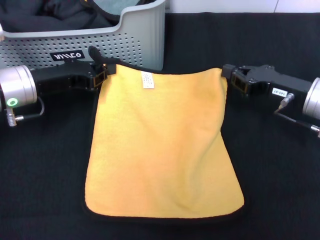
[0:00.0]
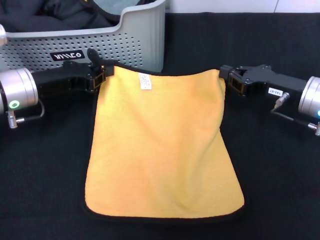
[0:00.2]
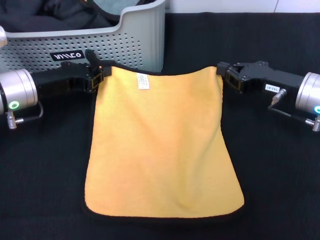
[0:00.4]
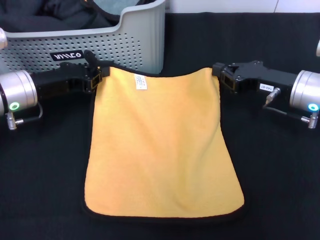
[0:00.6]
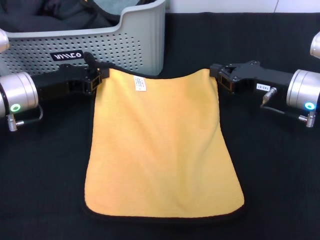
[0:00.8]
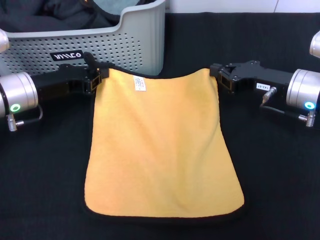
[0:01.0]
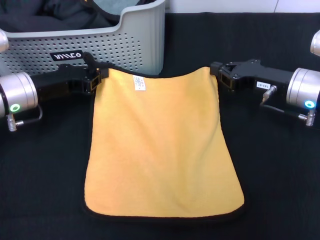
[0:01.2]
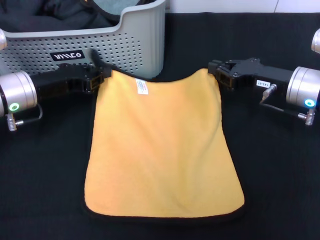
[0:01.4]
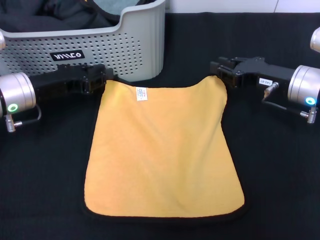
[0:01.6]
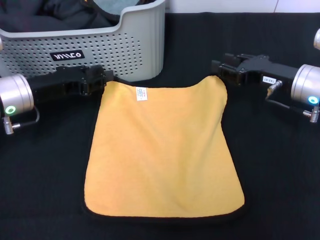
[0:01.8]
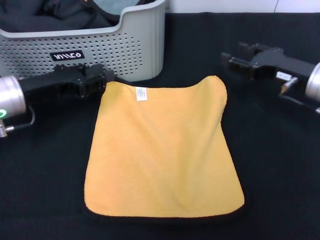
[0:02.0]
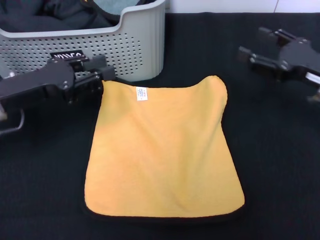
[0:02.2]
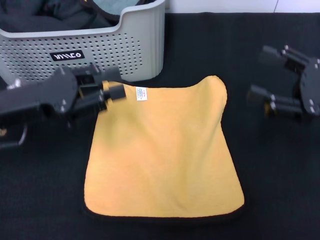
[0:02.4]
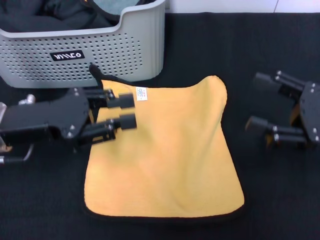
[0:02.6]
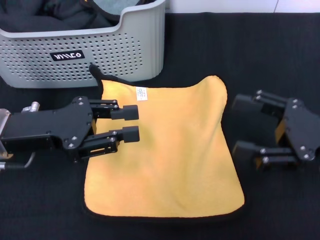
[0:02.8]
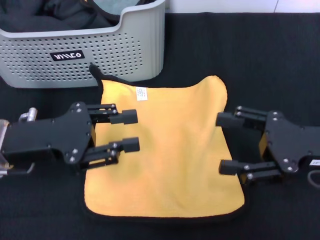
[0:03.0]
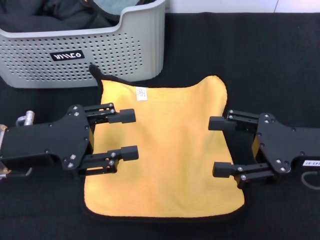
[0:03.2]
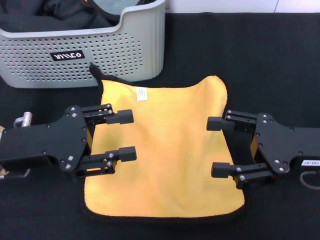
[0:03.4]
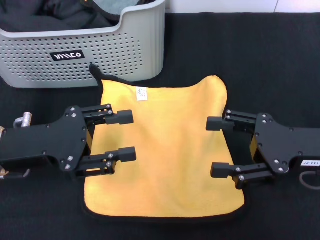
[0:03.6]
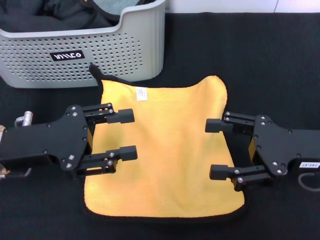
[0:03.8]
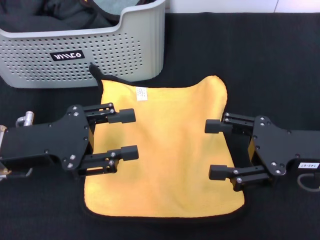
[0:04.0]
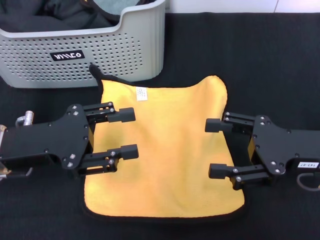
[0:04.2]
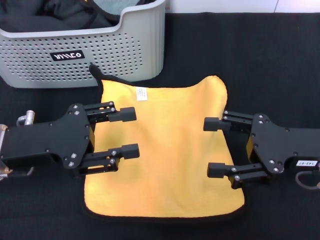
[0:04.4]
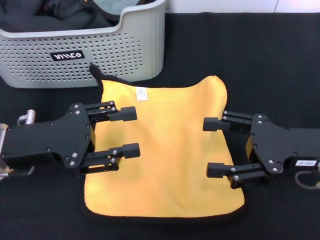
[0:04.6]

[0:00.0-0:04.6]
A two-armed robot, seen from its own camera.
Task of the whole recording: pick up the towel from the storage box and lay it flat on the black tablecloth.
0:00.0 to 0:01.6: The grippers make only small movements.
0:01.6 to 0:03.0: Both grippers travel together backward, some 10 cm. The right gripper opens. The left gripper opens.
0:03.0 to 0:04.6: The grippers move only a little.

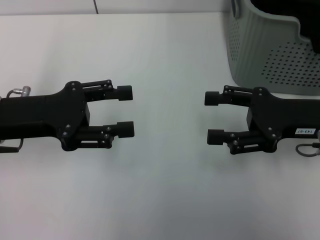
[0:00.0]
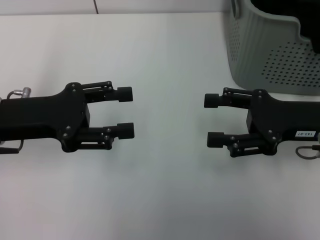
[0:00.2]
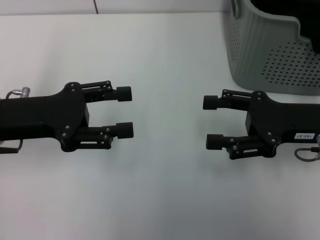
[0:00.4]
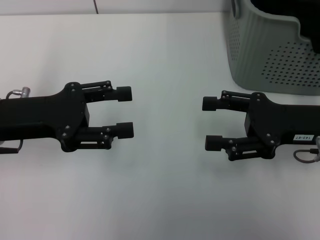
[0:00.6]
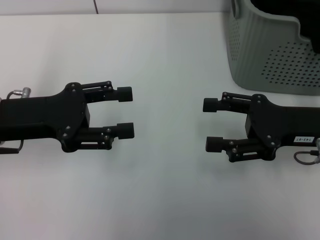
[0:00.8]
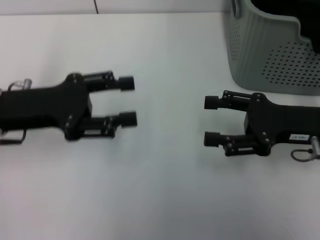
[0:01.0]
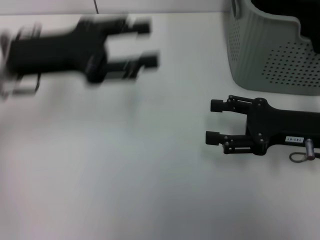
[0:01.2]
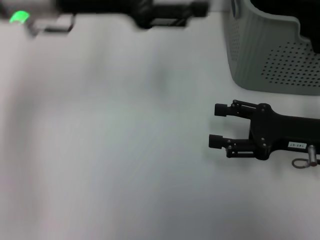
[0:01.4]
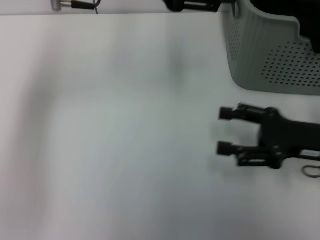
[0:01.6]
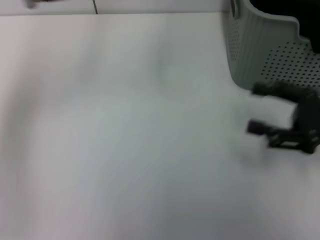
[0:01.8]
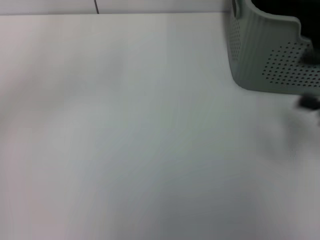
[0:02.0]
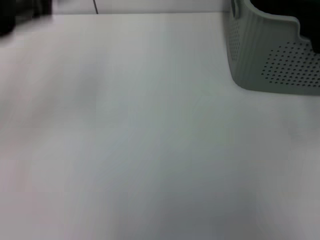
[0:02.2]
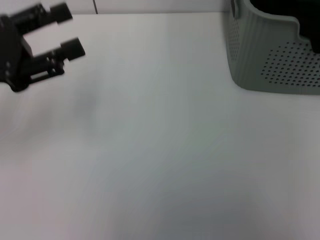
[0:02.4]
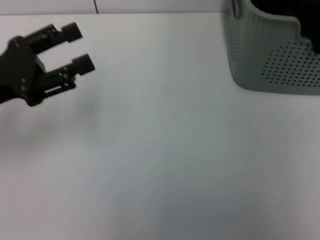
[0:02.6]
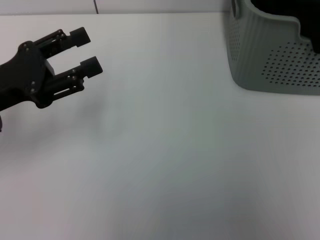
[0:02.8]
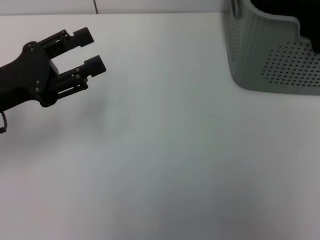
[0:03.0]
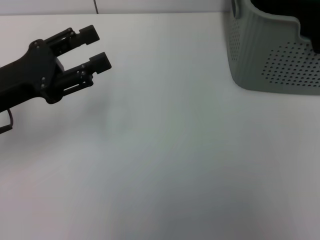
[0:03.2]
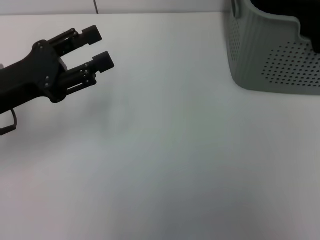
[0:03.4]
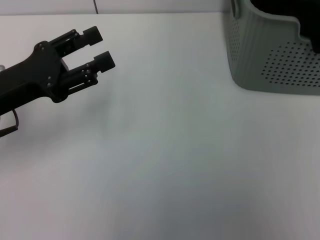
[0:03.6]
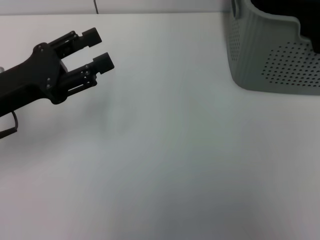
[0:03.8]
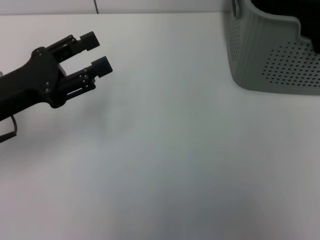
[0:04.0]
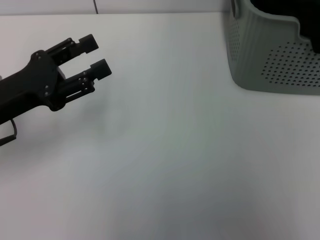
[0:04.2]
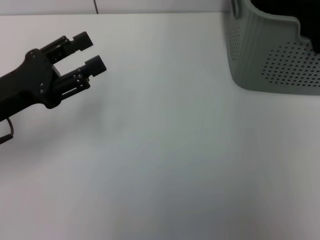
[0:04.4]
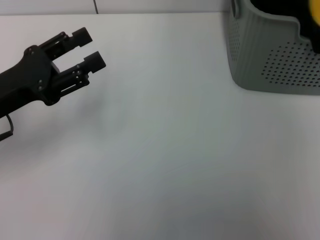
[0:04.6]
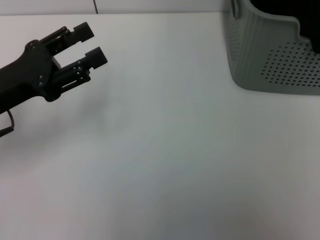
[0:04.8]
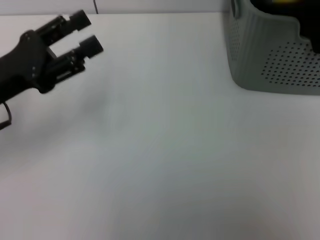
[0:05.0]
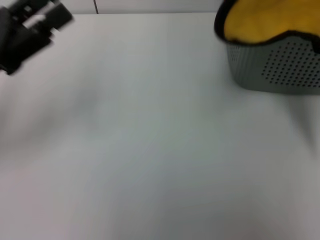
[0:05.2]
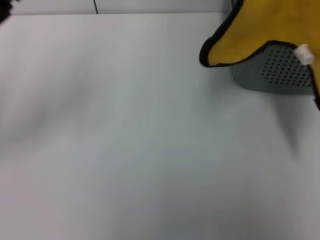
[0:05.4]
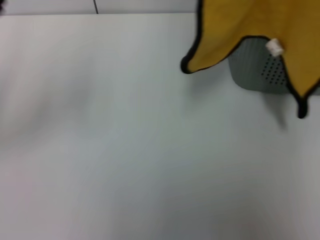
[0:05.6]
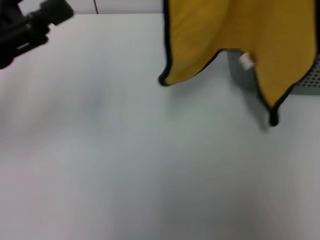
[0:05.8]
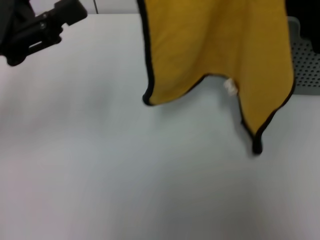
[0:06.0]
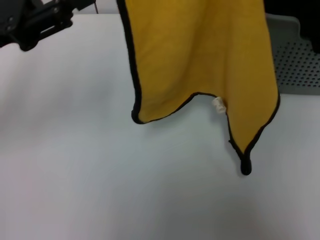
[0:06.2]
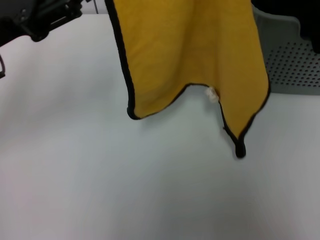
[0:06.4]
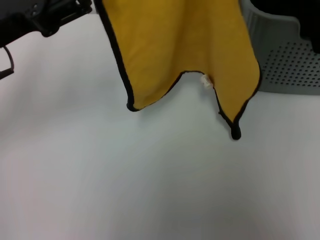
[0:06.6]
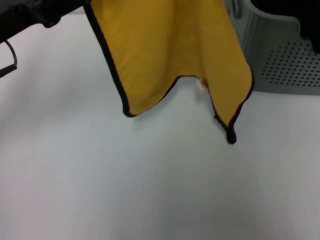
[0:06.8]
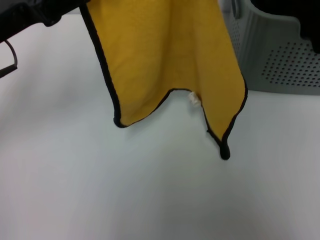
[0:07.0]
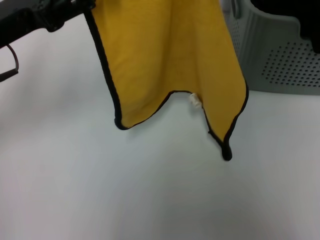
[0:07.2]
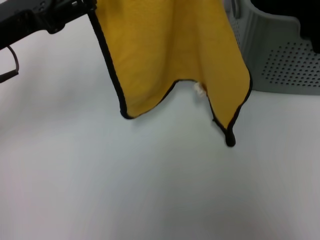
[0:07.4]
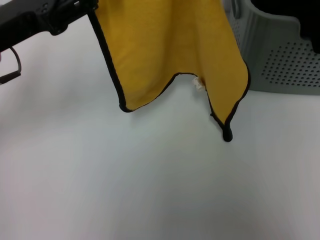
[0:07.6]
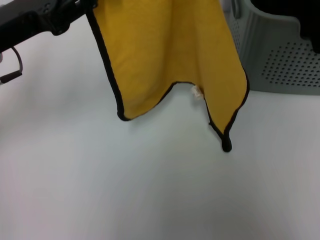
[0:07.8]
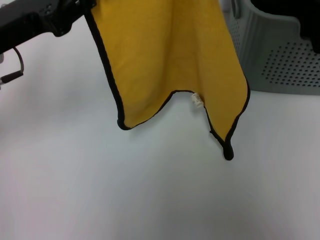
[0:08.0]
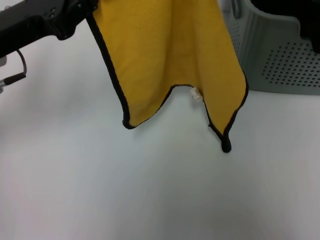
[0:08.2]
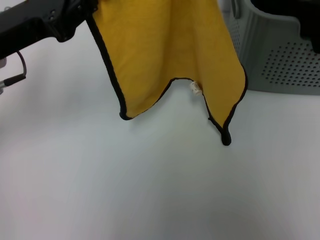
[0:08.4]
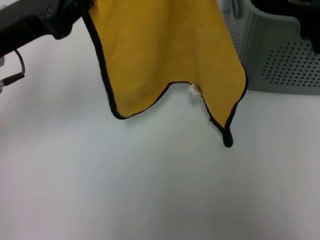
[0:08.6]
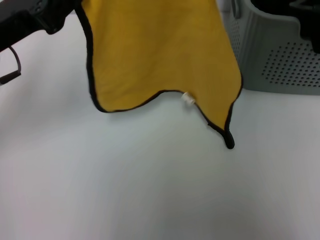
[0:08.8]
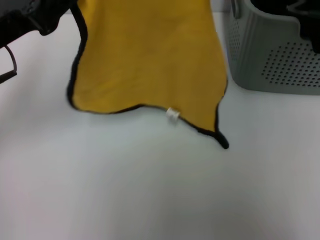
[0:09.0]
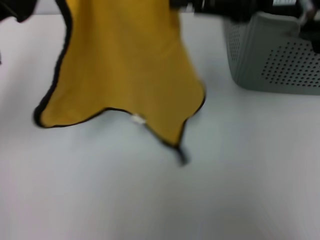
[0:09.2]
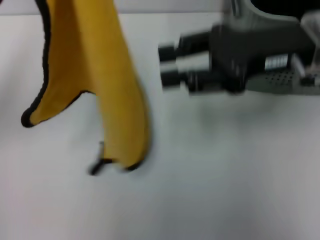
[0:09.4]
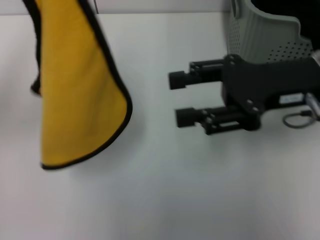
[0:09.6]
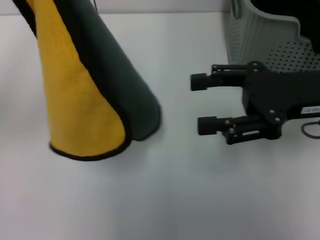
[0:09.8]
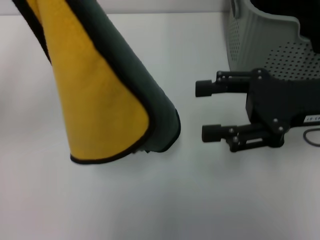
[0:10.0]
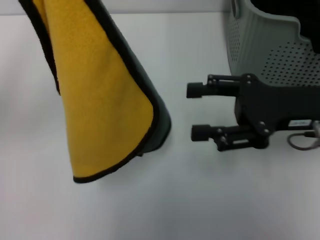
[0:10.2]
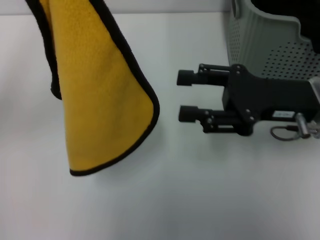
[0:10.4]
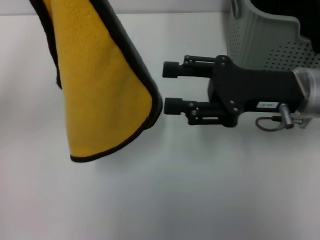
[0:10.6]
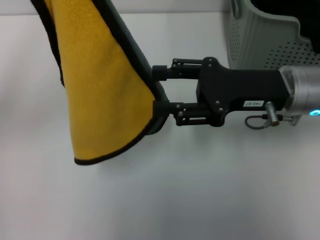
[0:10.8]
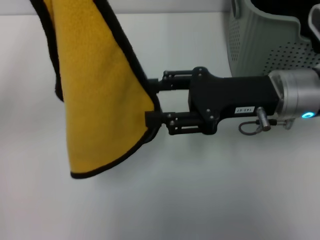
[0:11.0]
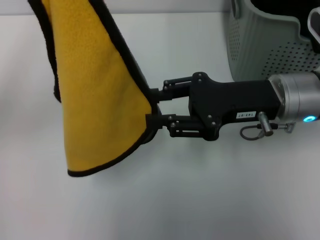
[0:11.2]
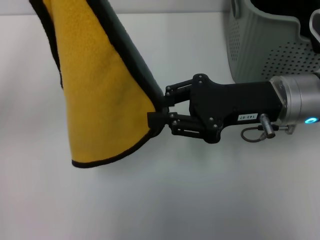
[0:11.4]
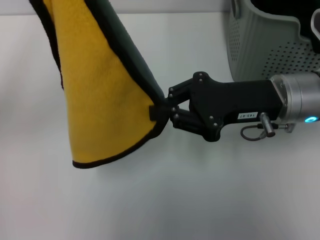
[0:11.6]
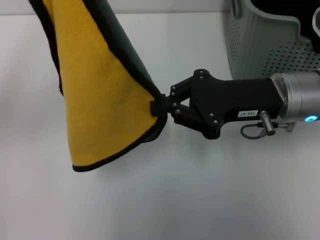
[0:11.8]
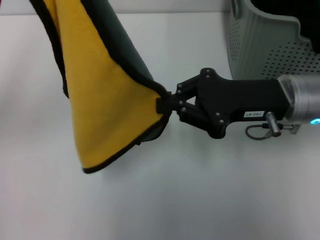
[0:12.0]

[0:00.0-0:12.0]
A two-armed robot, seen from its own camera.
Task of the whole recording: pick up the towel from the storage box and lay it flat on the table.
Step, 0:00.0 to 0:04.2: Pick up a towel with the right gripper.
Step, 0:04.4 to 0:08.2: Spread the towel flat with the right gripper.
0:00.0 to 0:01.6: The left gripper is displaced upward, to the right and forward by some 20 cm.
0:01.6 to 0:03.0: The left gripper heads to the left, downward and backward, covering some 20 cm, while the right gripper travels upward by some 30 cm.
0:04.4 to 0:06.0: The left gripper travels upward by roughly 5 cm, while the right gripper heads to the left and downward, covering roughly 10 cm.
0:06.0 to 0:07.6: The right gripper heads to the left, covering some 5 cm.
0:07.6 to 0:09.0: The left gripper closes up.
0:09.0 to 0:10.4: The right gripper heads downward and backward, covering approximately 15 cm, and opens its fingers. Meanwhile the left gripper heads upward, covering some 5 cm.
0:10.4 to 0:12.0: The right gripper closes.

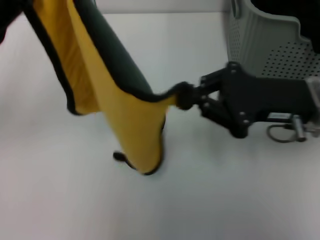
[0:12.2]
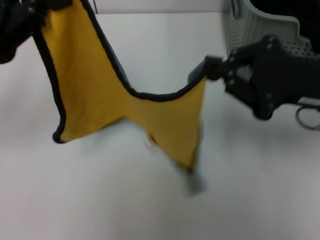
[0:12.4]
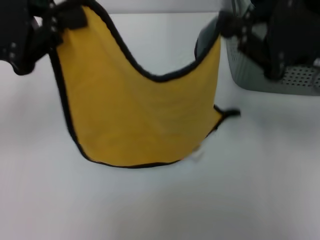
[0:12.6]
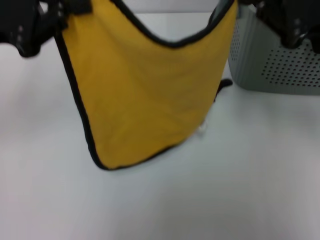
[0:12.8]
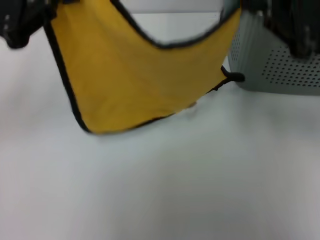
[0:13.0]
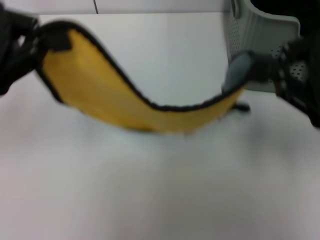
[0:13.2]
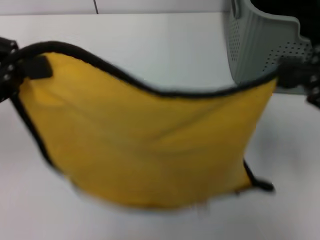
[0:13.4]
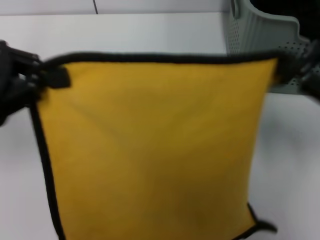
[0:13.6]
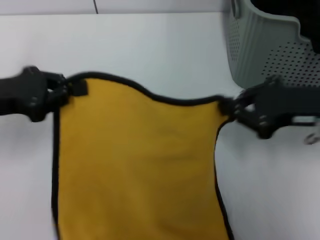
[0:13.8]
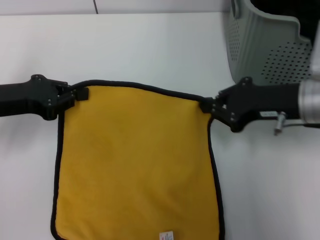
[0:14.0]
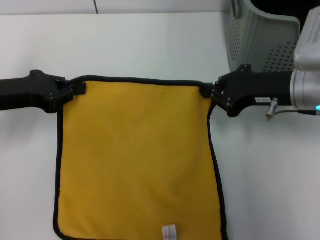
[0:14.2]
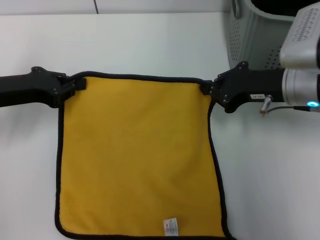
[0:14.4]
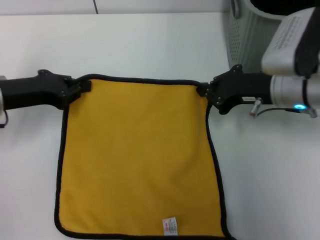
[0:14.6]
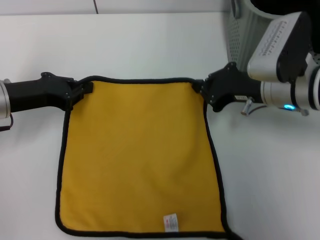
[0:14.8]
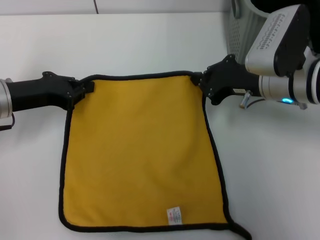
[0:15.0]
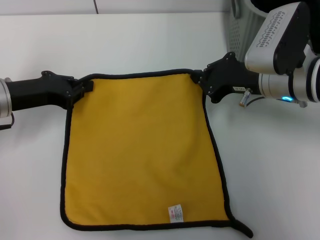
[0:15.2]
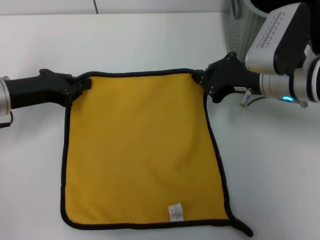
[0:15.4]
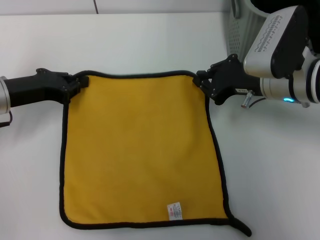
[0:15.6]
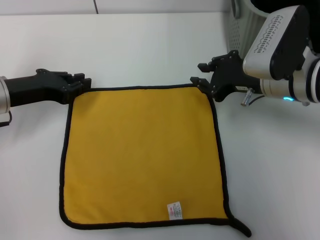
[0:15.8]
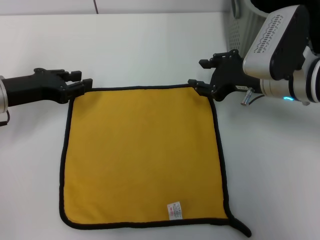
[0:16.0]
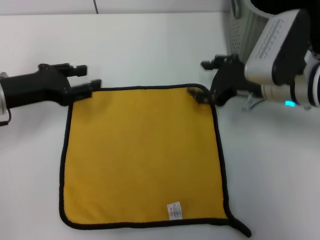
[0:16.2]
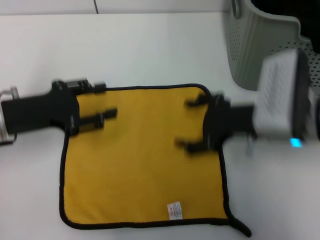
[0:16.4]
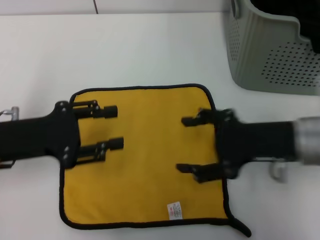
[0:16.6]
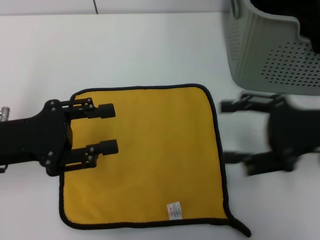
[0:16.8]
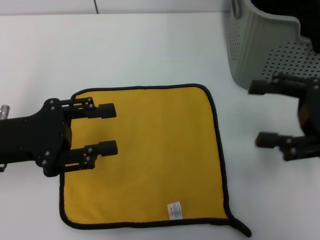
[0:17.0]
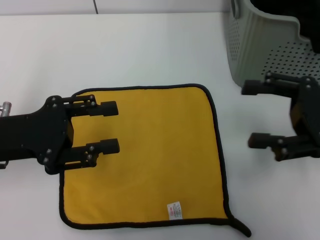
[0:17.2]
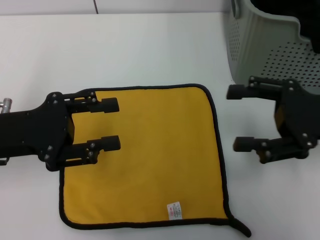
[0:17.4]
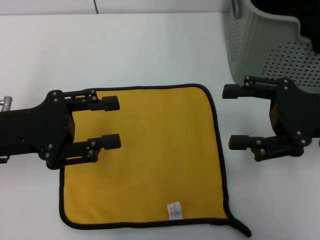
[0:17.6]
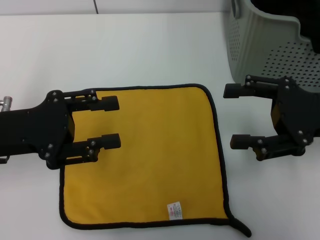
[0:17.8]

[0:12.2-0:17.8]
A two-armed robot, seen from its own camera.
Task of the whole recording: pick up the towel from the storage box and lay it flat on the table.
Step, 0:12.2 to 0:15.6: Spread the towel flat with the left gripper.
0:12.2 to 0:13.6: The right gripper shifts roughly 15 cm upward, to the right and backward.
0:13.6 to 0:15.0: The left gripper travels downward and forward by roughly 15 cm. Meanwhile the right gripper goes about 20 cm forward, downward and to the left.
0:15.0 to 0:16.4: The right gripper goes approximately 5 cm backward, and opens its fingers. Meanwhile the left gripper opens up.
0:16.4 to 0:17.8: The right gripper shifts roughly 10 cm to the right.
